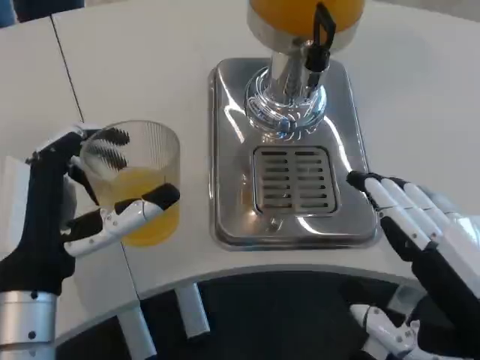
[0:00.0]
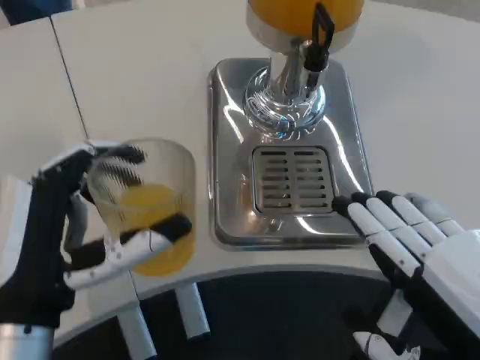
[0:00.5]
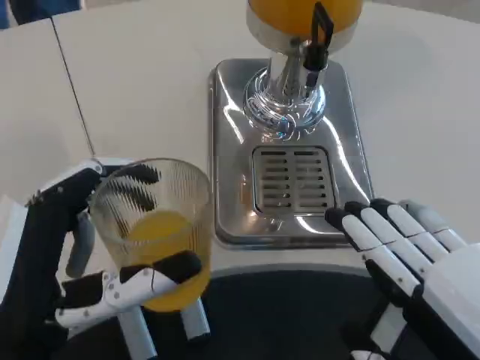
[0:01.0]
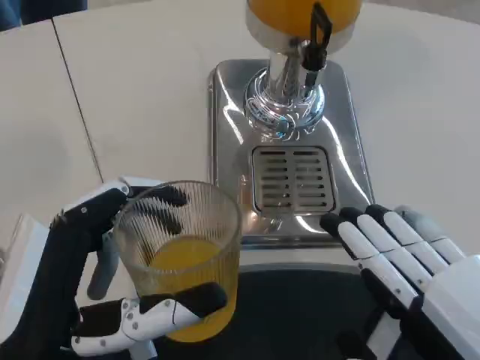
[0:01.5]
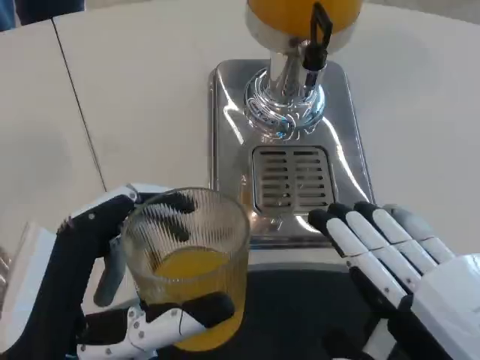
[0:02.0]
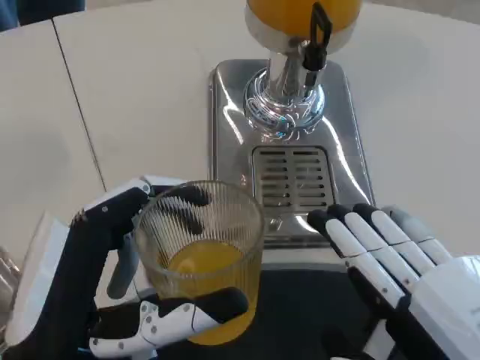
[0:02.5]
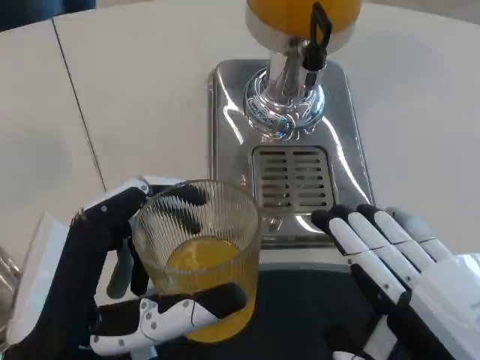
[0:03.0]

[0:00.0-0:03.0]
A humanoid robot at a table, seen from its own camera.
Task of the whole recording: Grasp the cup under the faucet to collect the drink, then remove the cup.
0:00.0 to 0:01.5: The left hand goes about 10 cm backward.
0:01.5 to 0:03.0: Neither hand changes place.

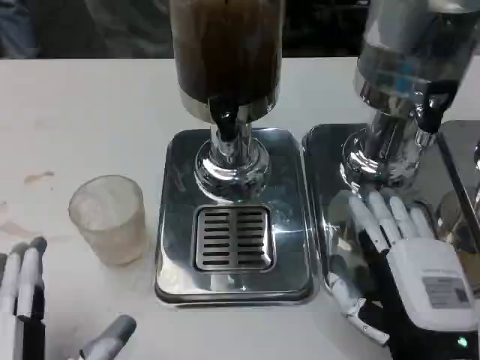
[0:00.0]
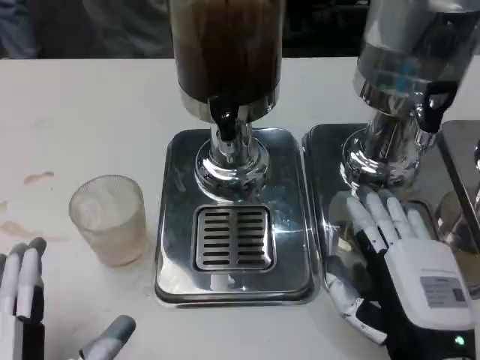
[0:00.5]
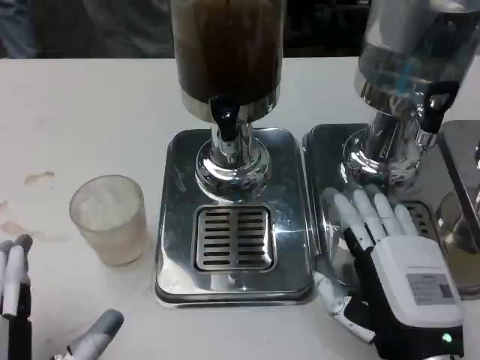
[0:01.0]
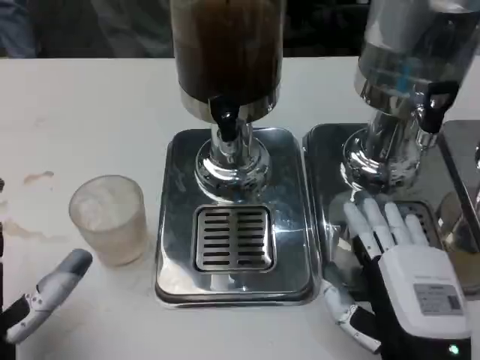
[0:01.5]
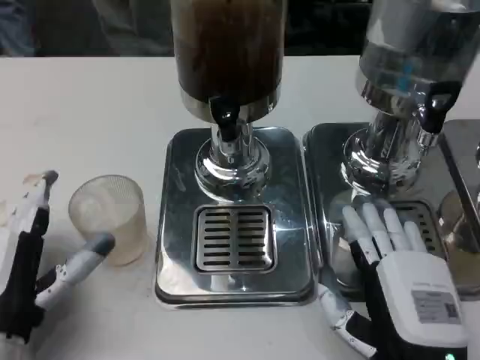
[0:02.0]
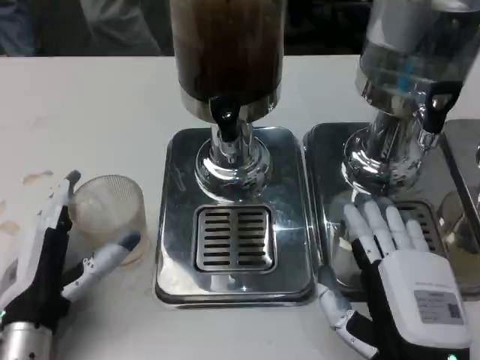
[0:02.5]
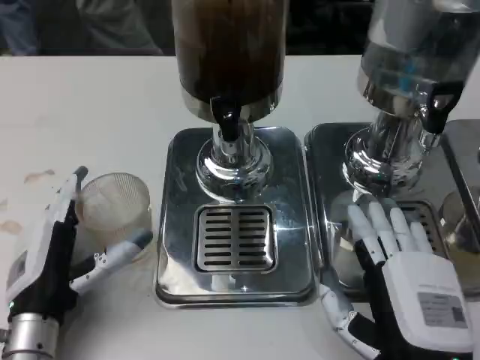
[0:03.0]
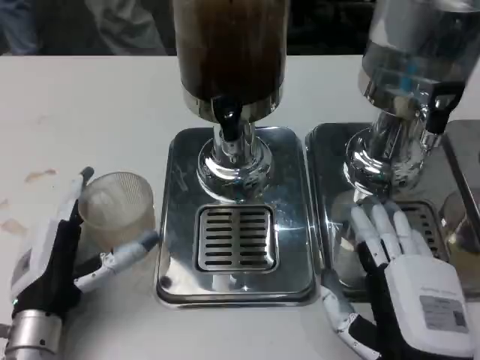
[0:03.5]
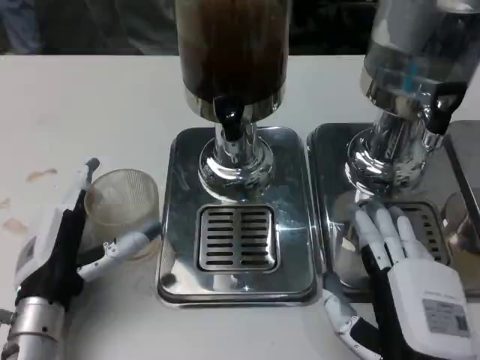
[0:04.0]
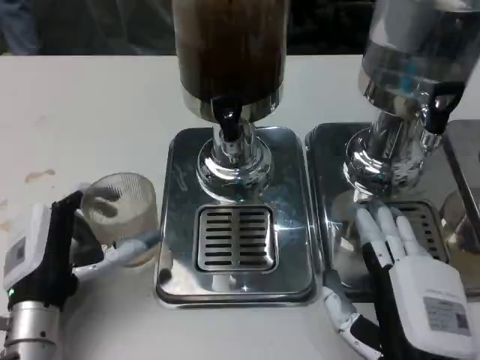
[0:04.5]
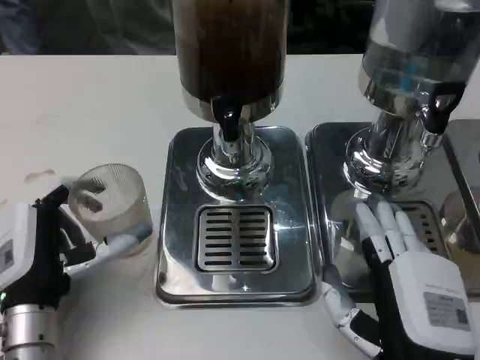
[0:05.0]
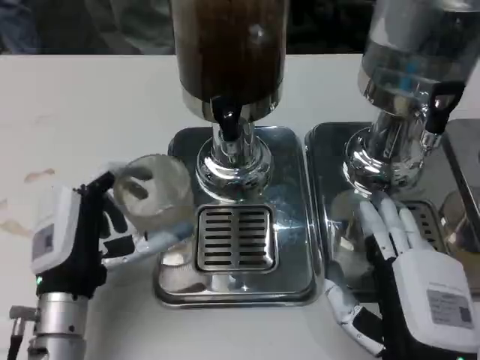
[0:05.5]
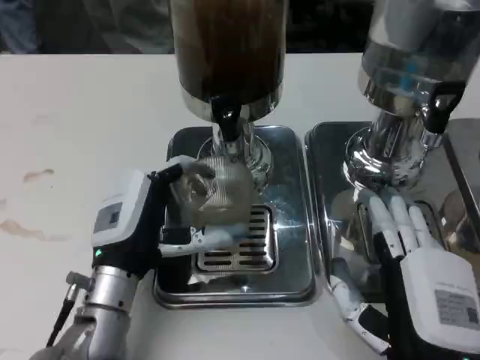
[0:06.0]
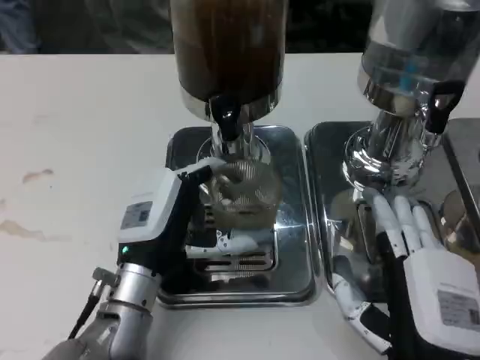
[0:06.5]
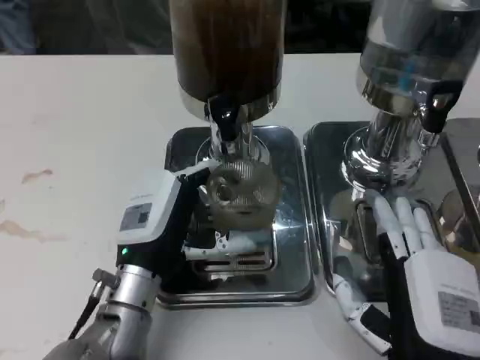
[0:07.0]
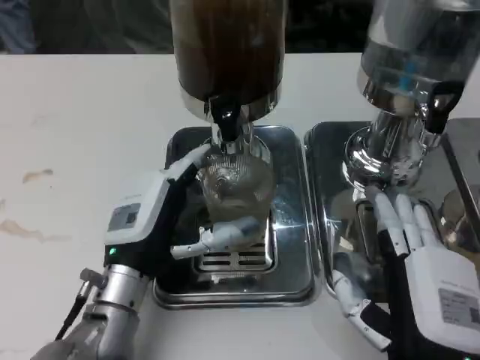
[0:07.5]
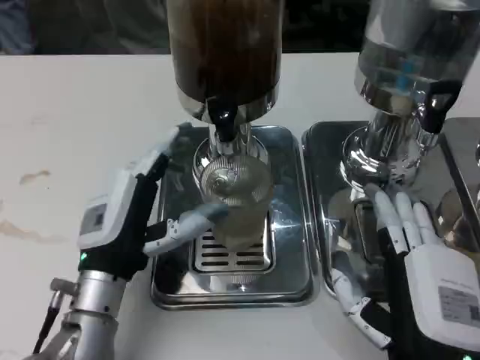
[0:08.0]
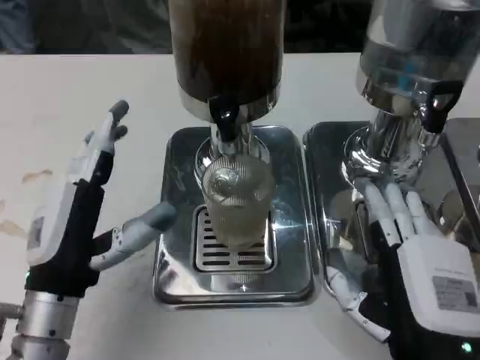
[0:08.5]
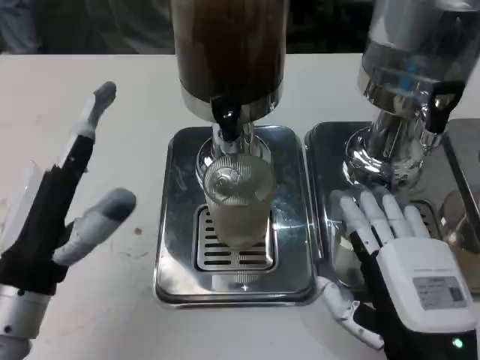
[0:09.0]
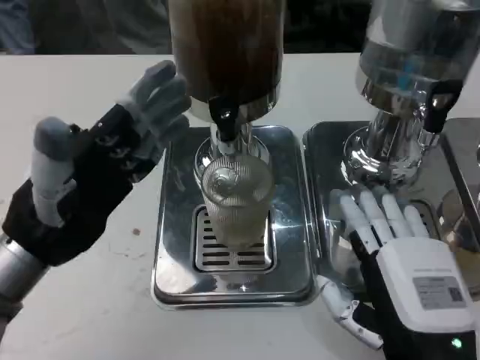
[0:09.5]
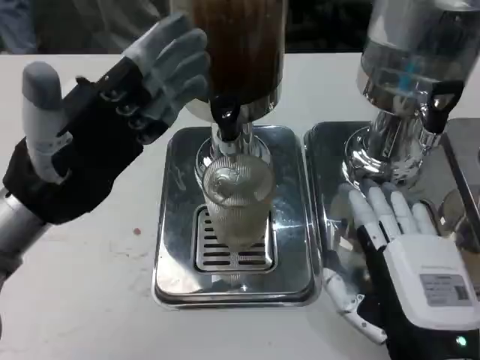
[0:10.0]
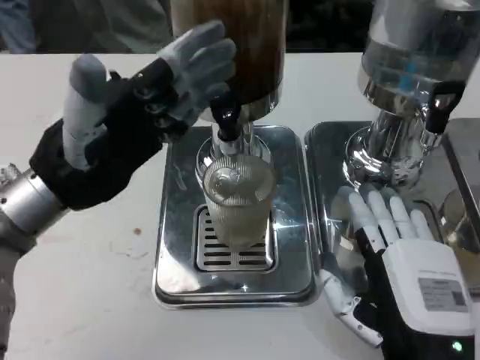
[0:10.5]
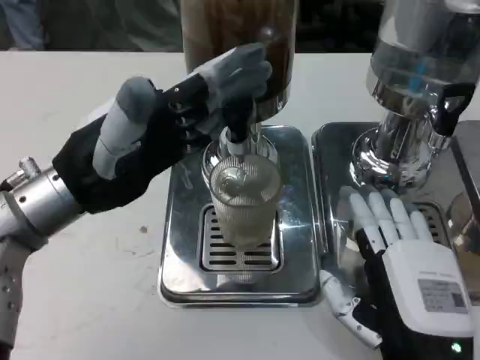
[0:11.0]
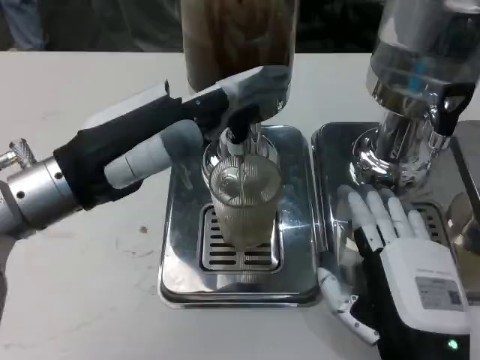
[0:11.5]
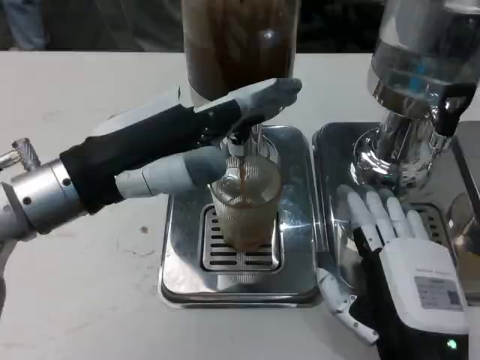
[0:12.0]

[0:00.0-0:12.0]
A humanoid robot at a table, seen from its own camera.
Task of the whole recording: Grasp the cup under the faucet to collect the drink, then remove the cup.
0:00.0 to 0:02.0: The left hand is displaced forward and to the left by about 10 cm.
0:04.0 to 0:06.0: The left hand travels to the right by some 5 cm.
0:08.0 to 0:10.0: The left hand heads upward and to the left, covering some 15 cm.
0:10.0 to 0:12.0: The left hand moves approximately 5 cm.

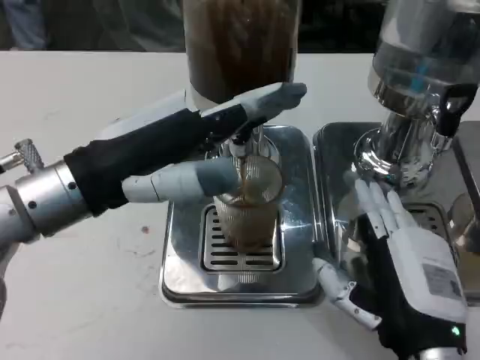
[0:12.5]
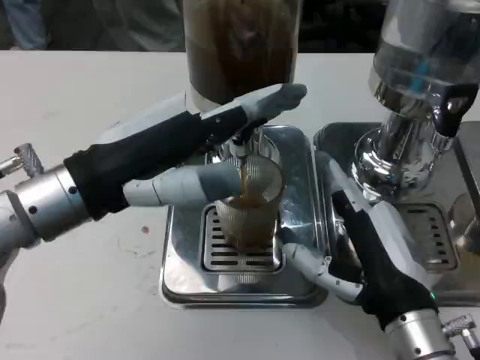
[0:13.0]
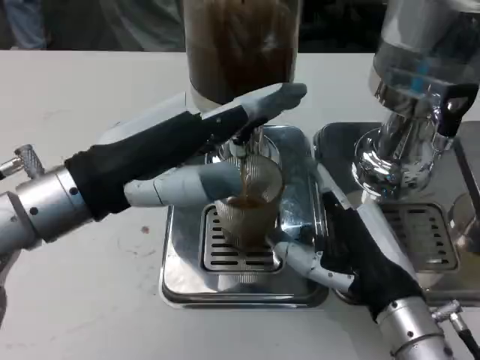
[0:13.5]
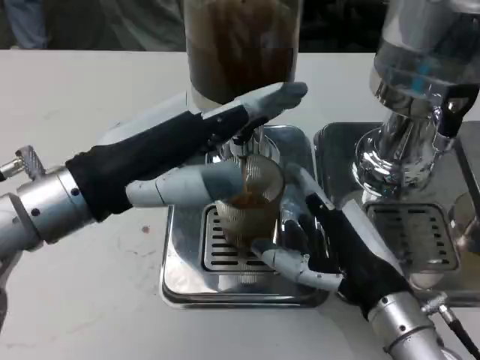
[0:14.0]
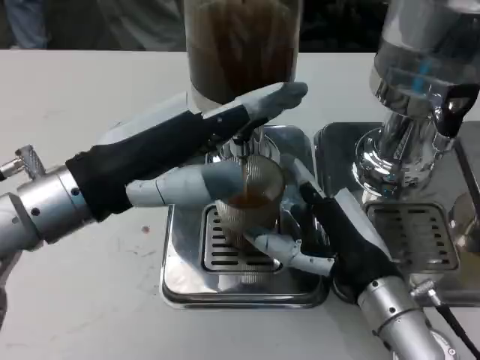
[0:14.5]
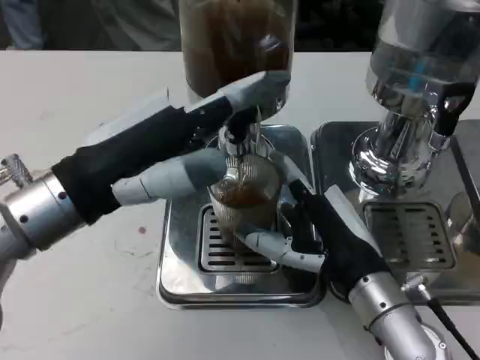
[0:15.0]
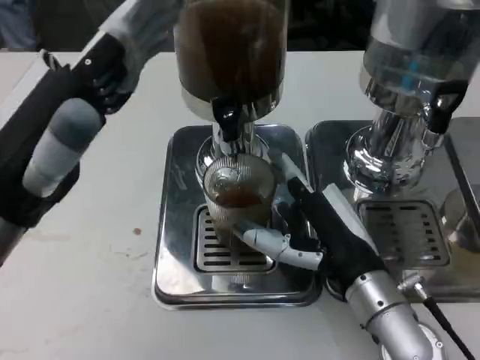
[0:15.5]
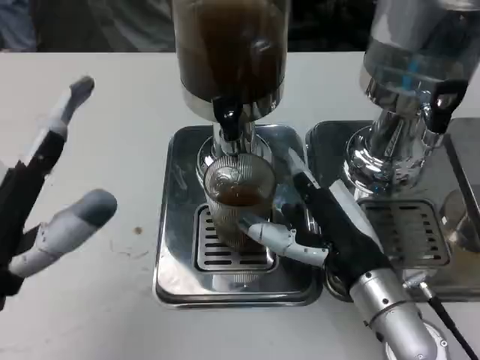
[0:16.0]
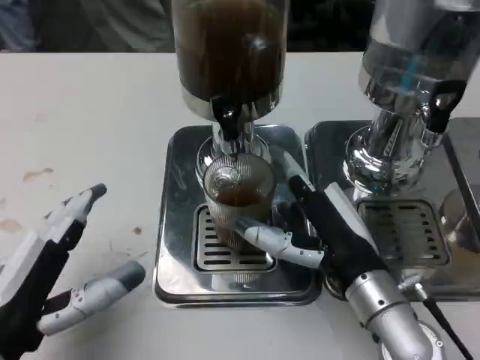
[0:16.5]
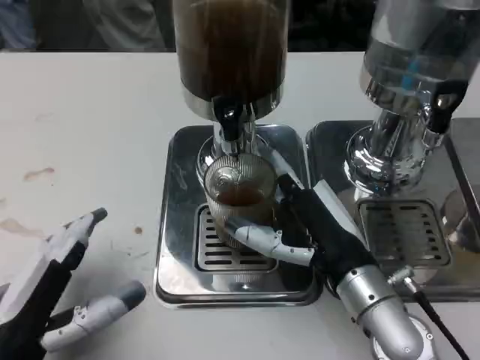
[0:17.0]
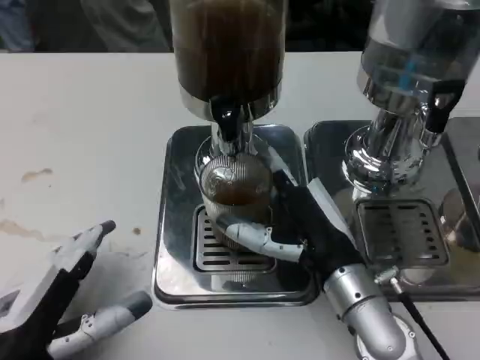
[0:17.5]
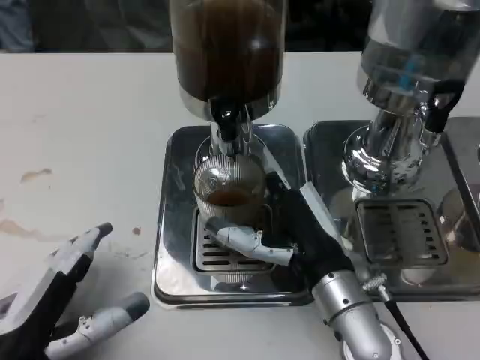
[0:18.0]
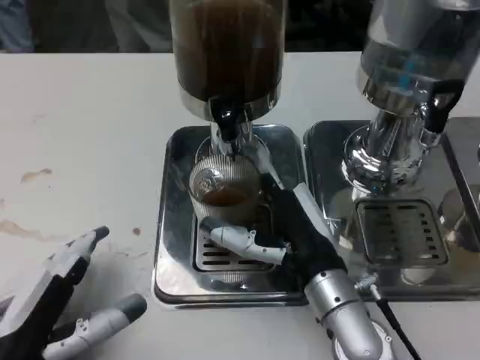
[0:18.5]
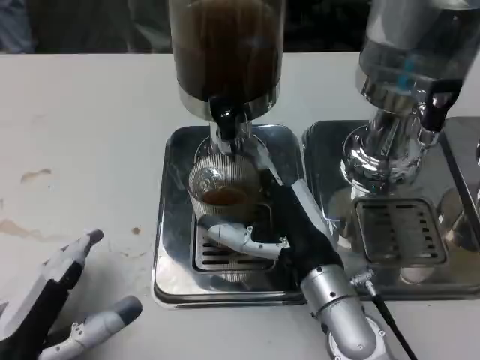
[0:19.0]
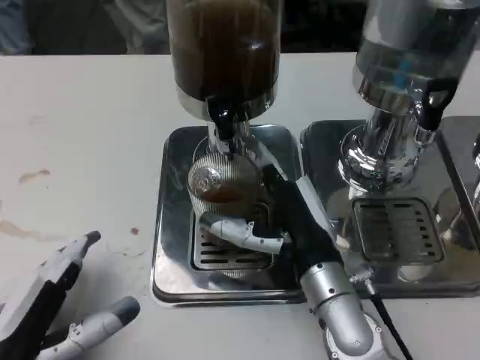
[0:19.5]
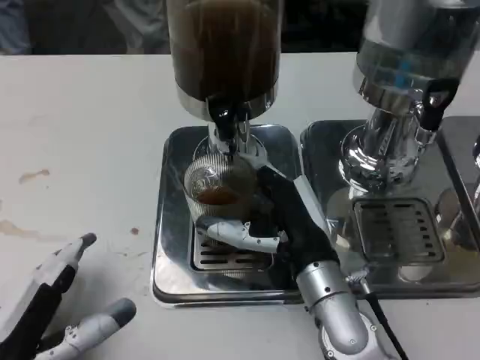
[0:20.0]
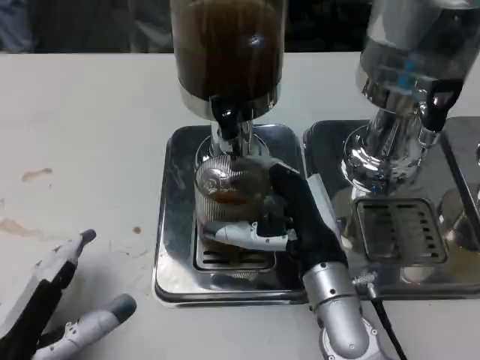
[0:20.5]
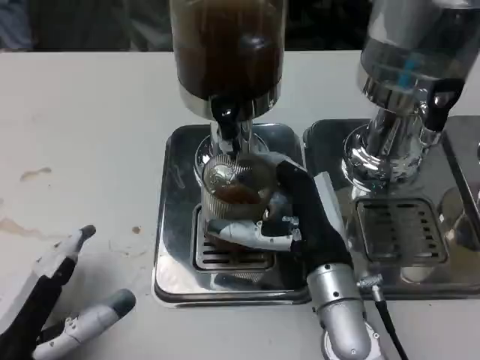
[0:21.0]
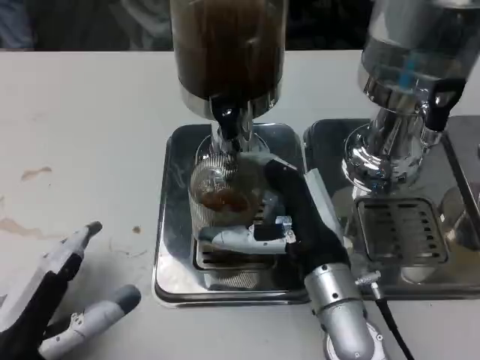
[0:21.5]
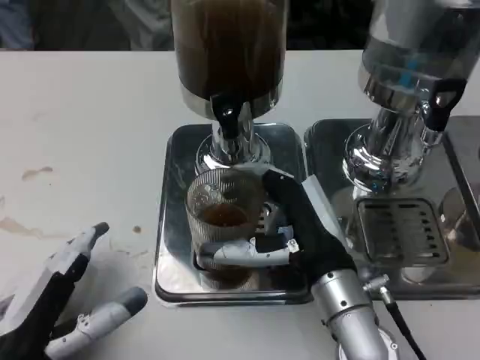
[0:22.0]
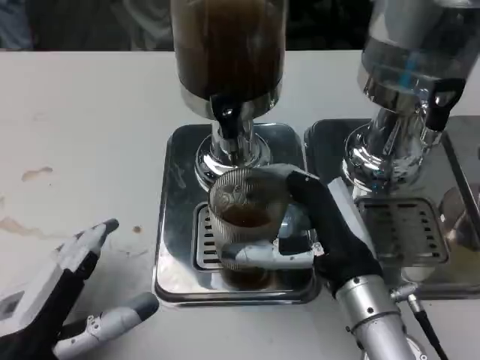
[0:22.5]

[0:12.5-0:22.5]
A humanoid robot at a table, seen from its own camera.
Task of the whole recording: Grasp the cup under the faucet to collect the drink, then remove the cup.
0:12.5 to 0:14.5: The right hand heads forward, covering approximately 5 cm.
0:14.5 to 0:16.5: The left hand is displaced backward and downward by about 15 cm.
0:18.5 to 0:20.5: The hands stay close to where they were, moving slightly.
0:20.5 to 0:22.5: The right hand moves about 5 cm.

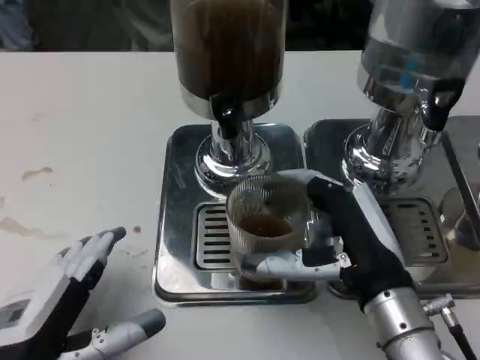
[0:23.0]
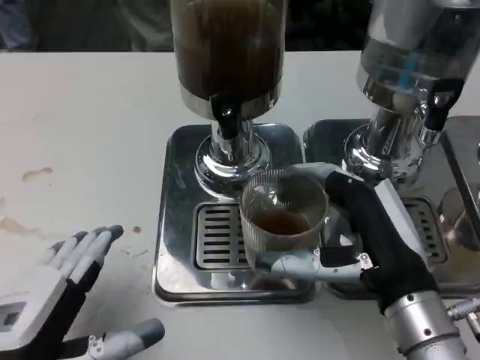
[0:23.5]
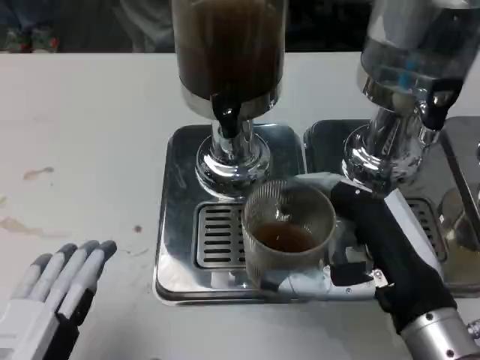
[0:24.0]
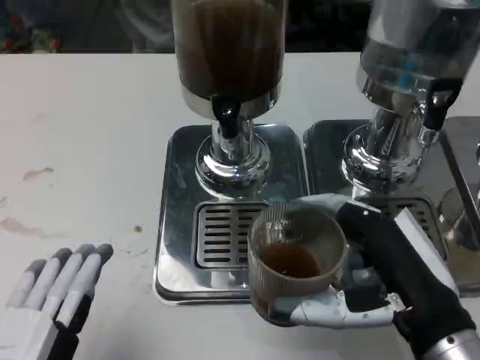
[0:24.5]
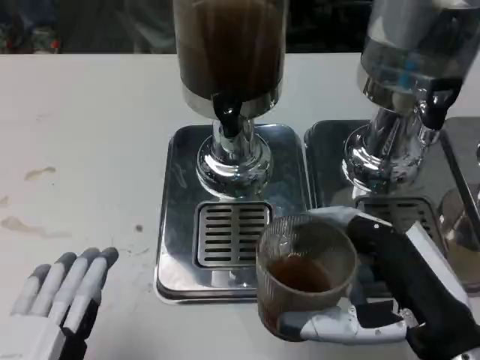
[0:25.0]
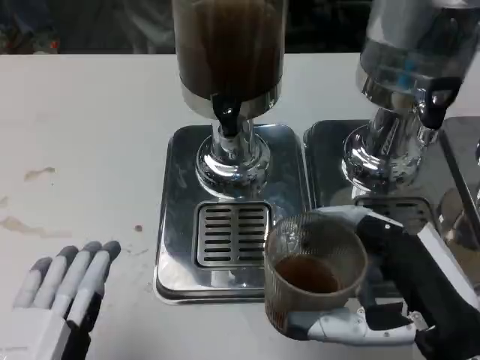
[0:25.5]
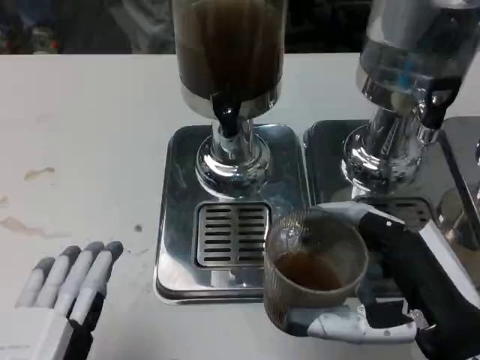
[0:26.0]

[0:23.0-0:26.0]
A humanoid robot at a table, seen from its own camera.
Task of the whole recording: Grasp the cup under the faucet to collect the drink, then remove the cup.
0:23.0 to 0:24.5: Both hands move backward, approximately 5 cm.
0:24.5 to 0:26.0: The hands make only small movements.
